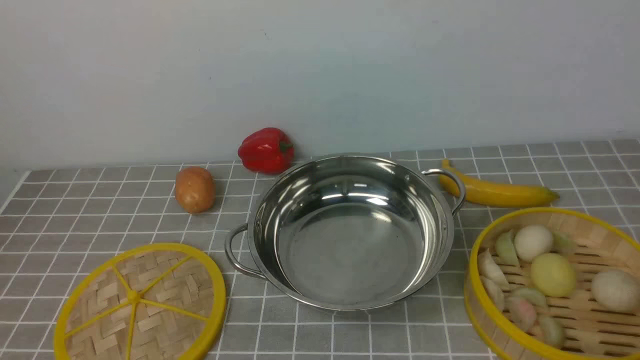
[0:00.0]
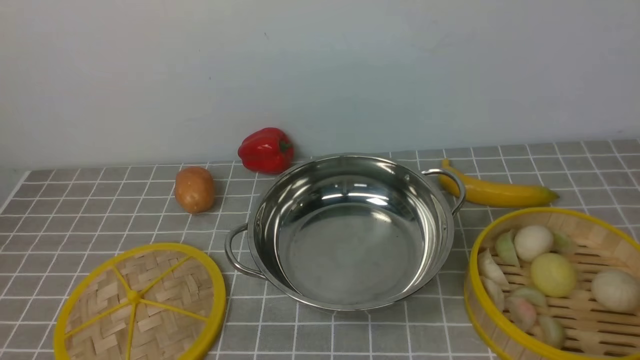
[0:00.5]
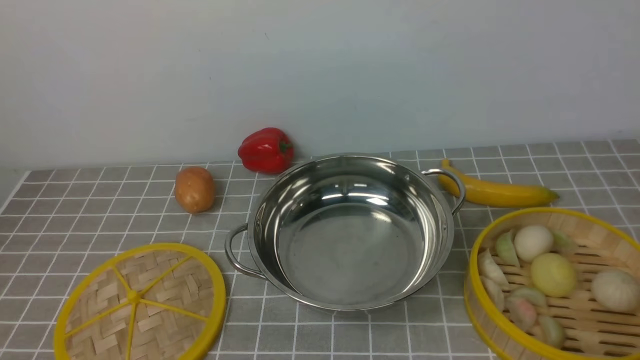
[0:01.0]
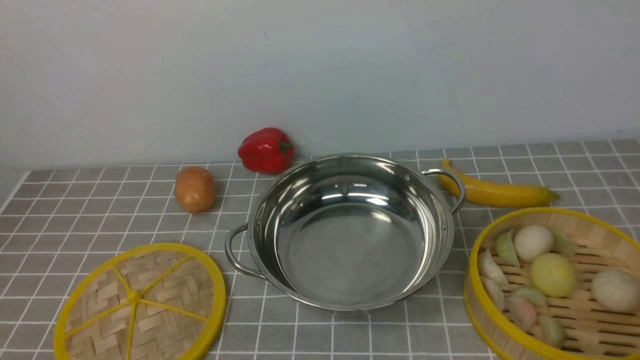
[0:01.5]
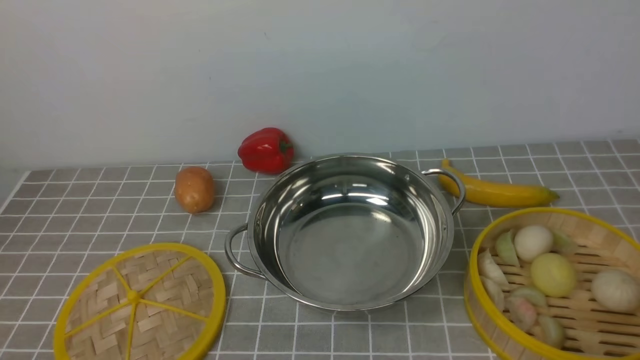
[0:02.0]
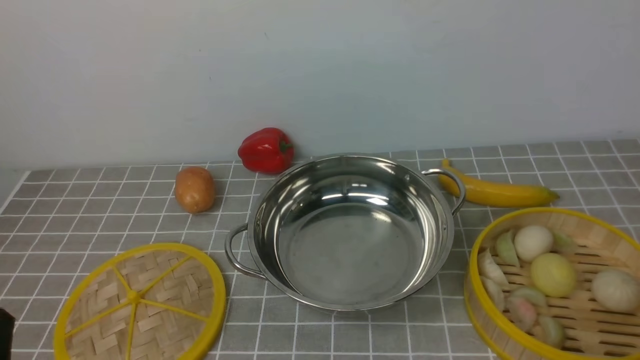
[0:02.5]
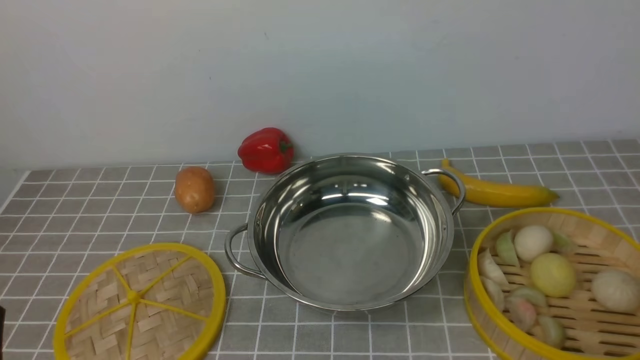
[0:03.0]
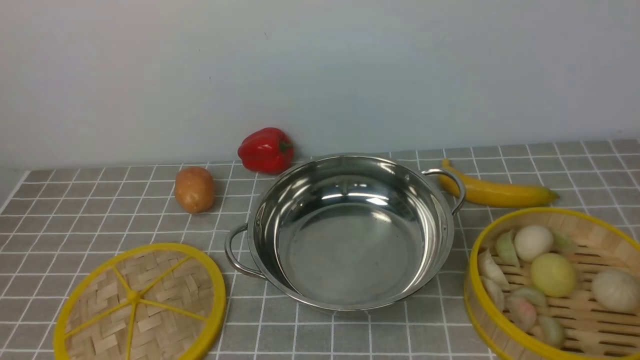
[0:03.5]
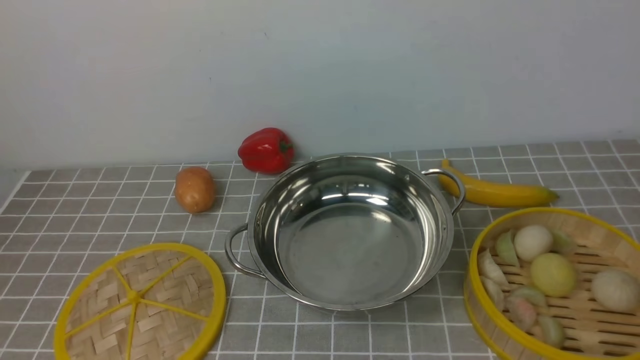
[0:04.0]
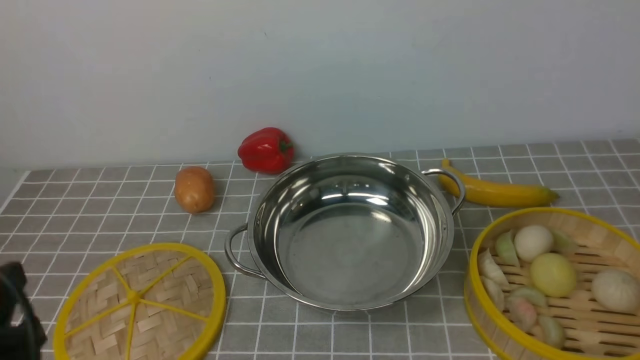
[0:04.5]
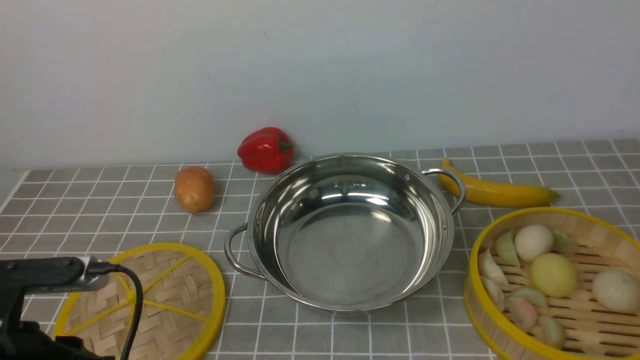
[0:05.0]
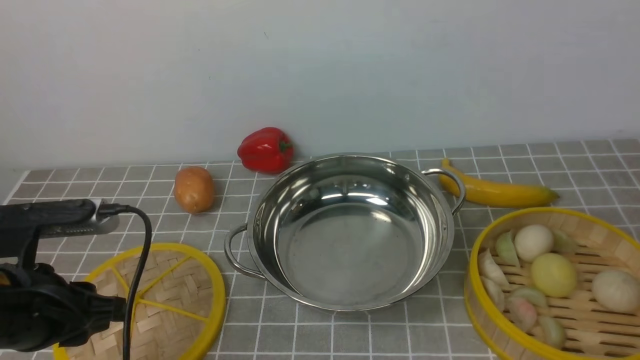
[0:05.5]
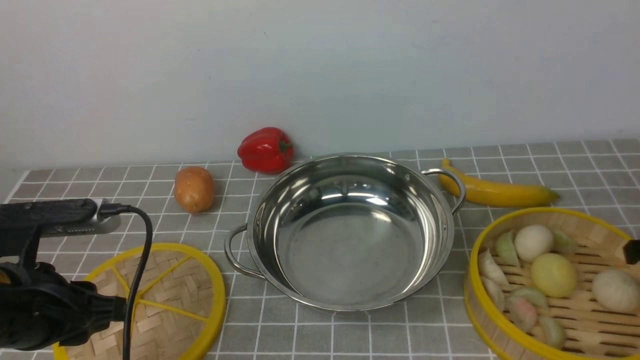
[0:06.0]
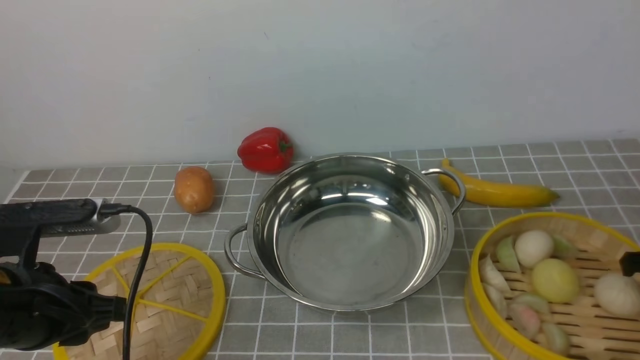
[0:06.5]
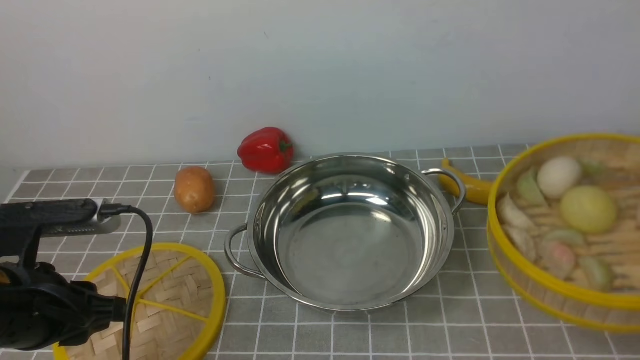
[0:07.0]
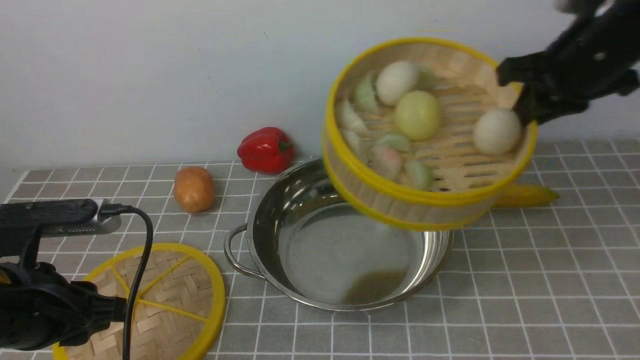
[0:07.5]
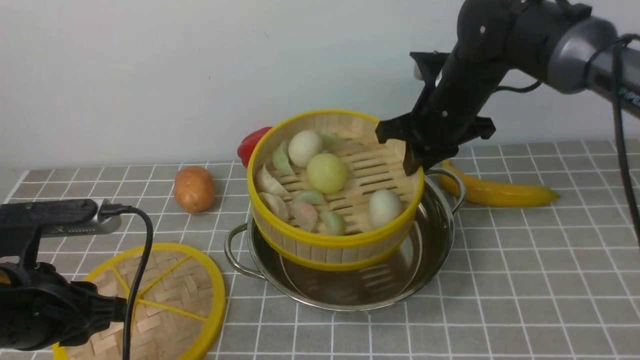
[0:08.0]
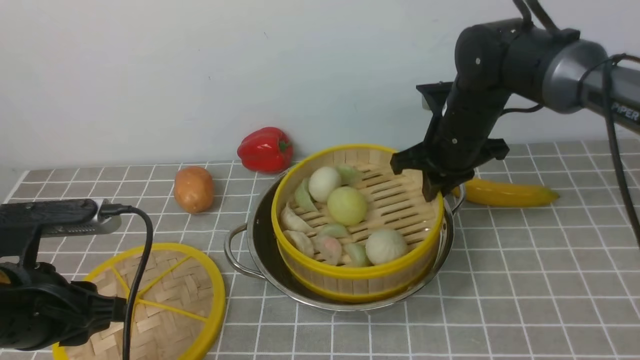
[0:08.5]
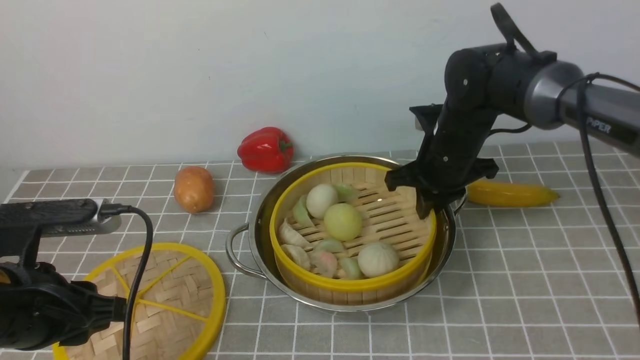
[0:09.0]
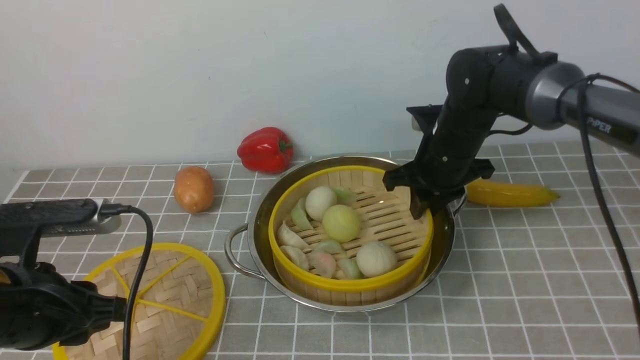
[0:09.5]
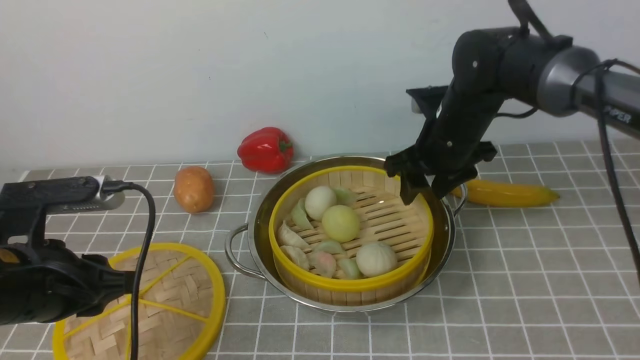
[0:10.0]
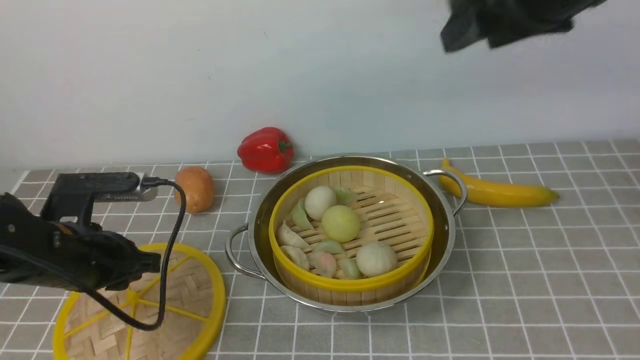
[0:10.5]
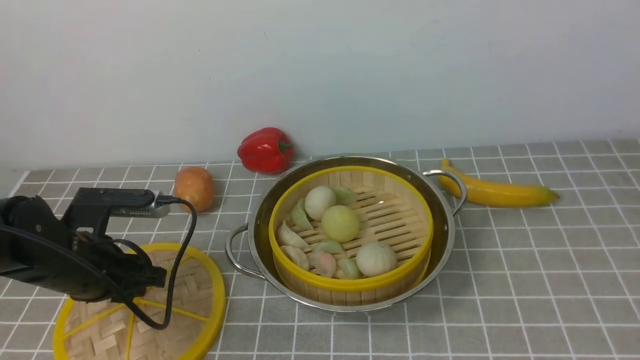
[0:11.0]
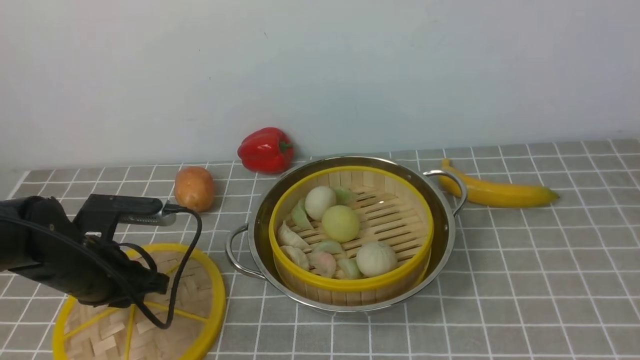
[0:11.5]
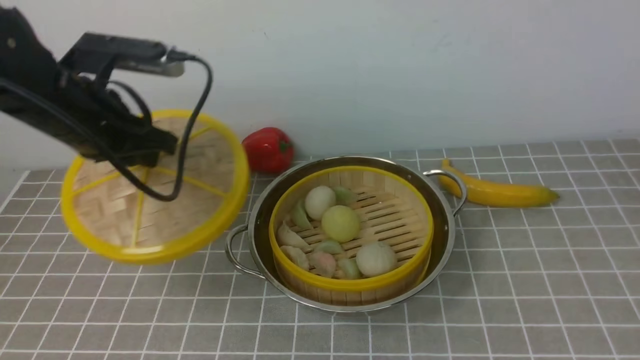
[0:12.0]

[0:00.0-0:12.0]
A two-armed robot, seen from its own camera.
Task of the whole recording: place the steamer in the pot on the grey tablecloth, and put the lid on the steamer.
Step, 0:00.0 to 0:06.5: use the right arm to lift the steamer closest to it.
Step, 0:07.0 to 0:09.5: use the right arm to put the steamer into the iron steamer pot in the middle.
0:04.0 to 0:06.0: The left gripper heads forward and downward, covering roughly 20 cm.
0:06.0 to 0:08.0: The right gripper travels to the left and forward by approximately 25 cm, and closes up.
0:08.0 to 0:10.0: The right gripper heads downward, covering some 5 cm, and opens.
0:10.0 to 0:12.0: The left gripper goes about 15 cm forward, and closes. The right gripper moves backward and upward, about 60 cm.

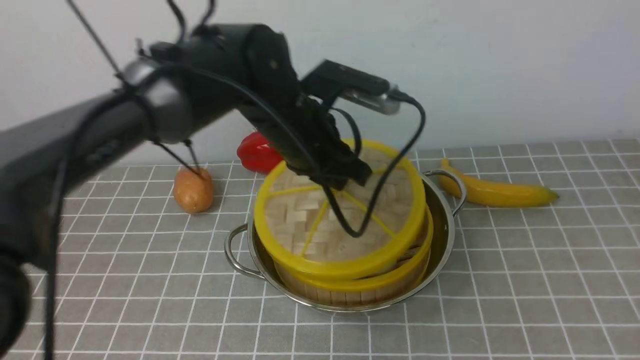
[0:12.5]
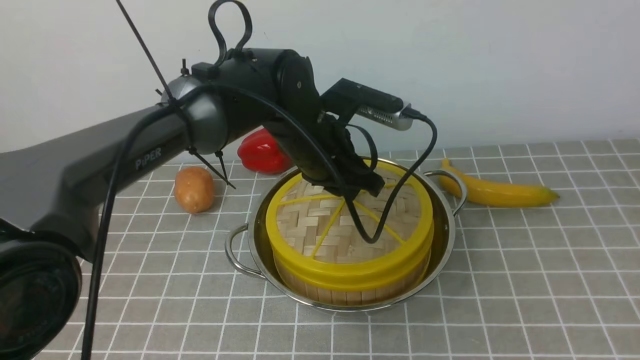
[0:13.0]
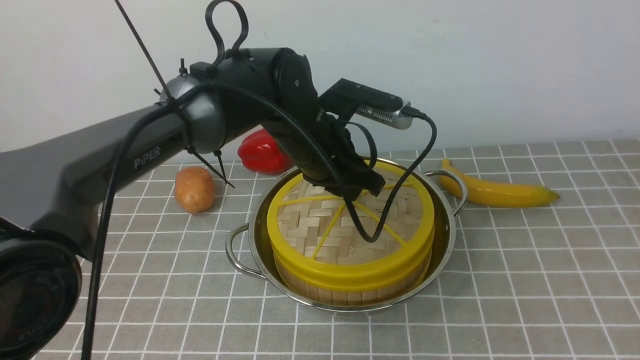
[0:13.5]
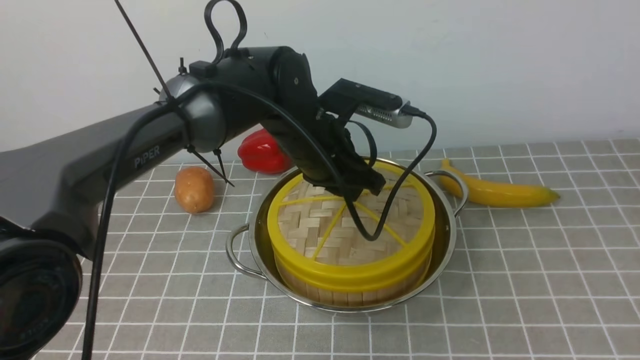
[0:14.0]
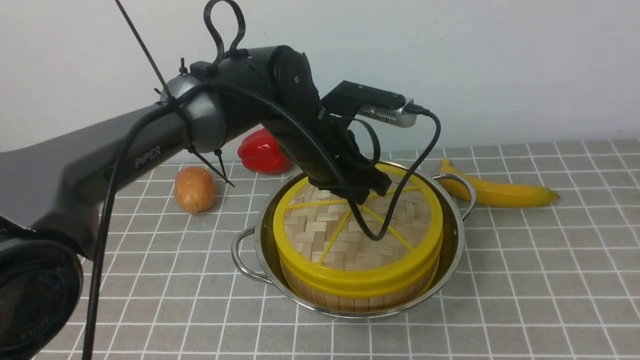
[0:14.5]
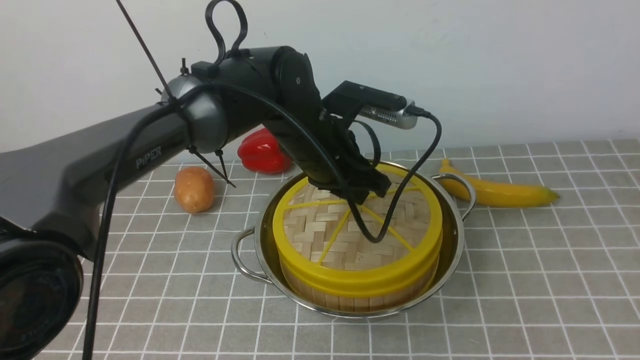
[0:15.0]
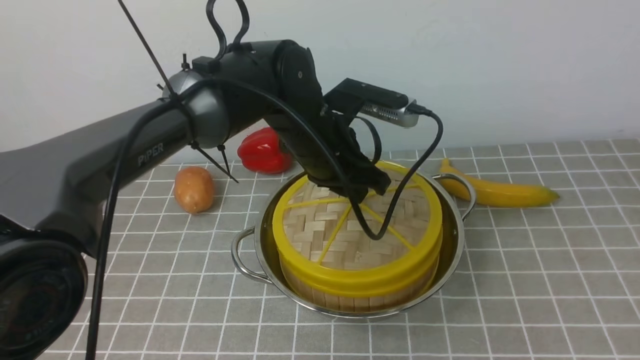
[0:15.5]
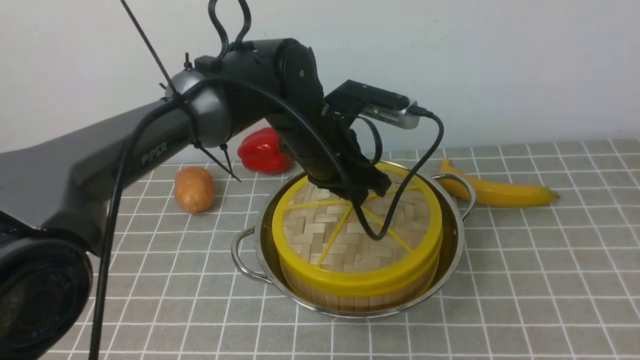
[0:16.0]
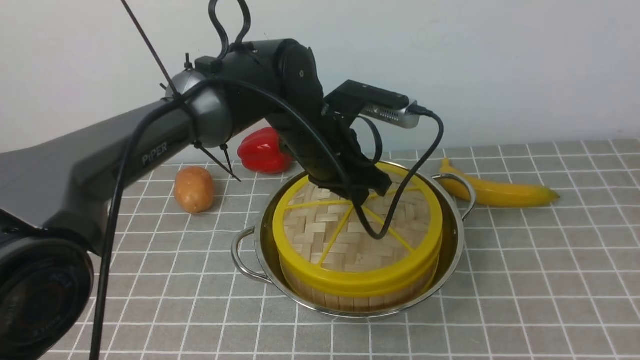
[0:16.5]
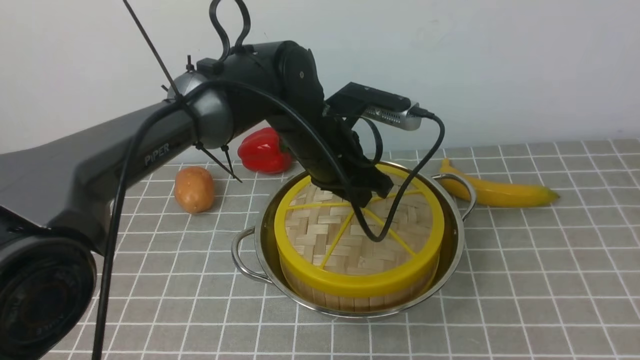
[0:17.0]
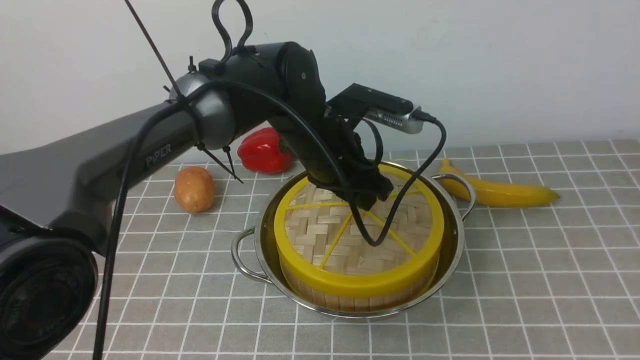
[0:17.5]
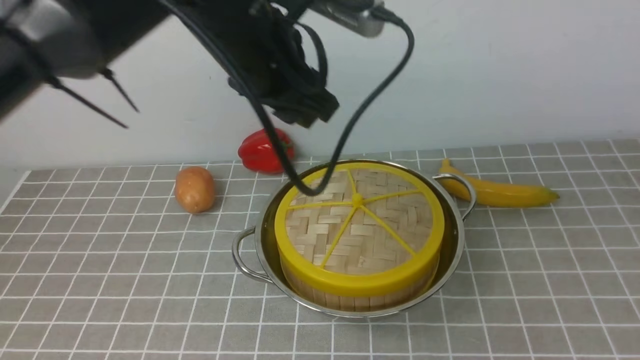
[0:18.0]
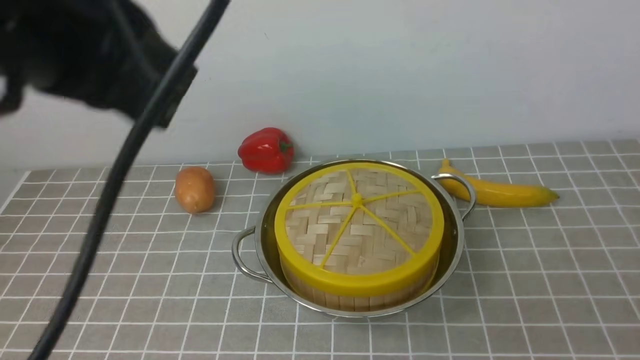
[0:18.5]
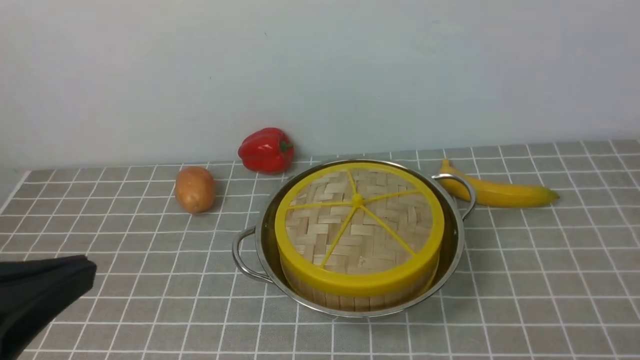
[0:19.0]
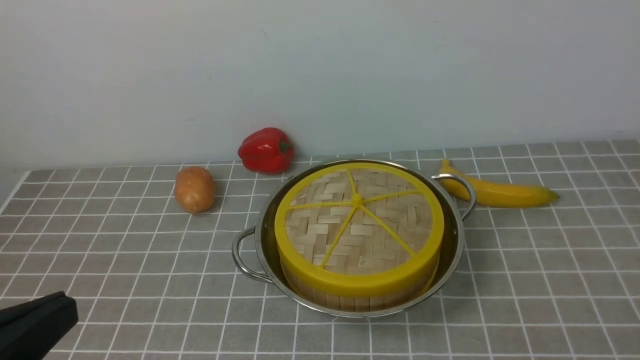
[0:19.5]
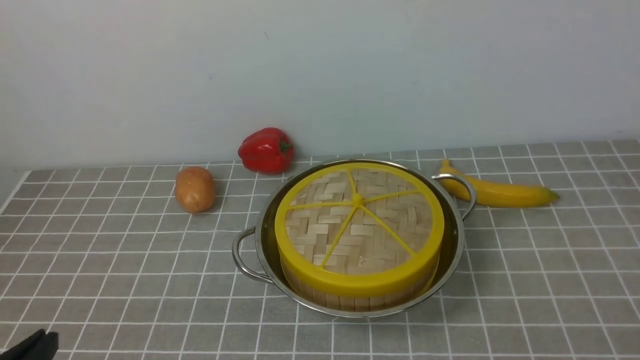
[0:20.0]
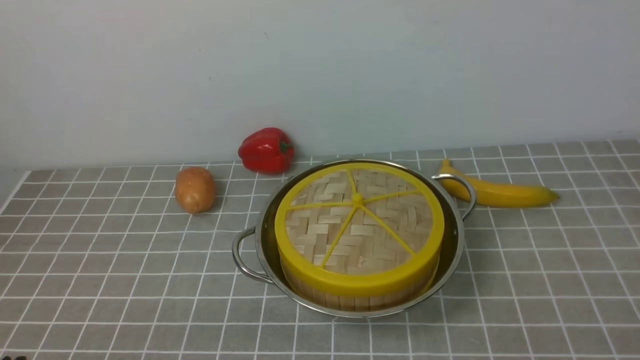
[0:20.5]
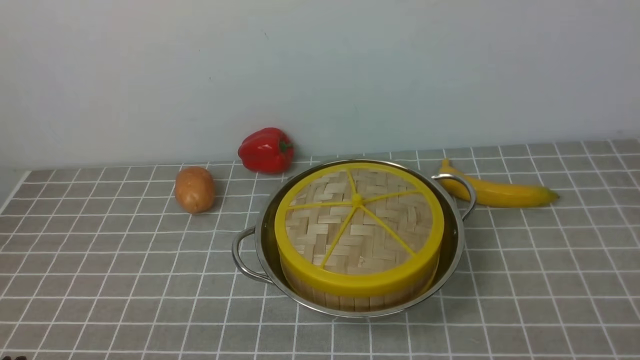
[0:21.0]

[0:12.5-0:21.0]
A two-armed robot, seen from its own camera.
Task of the whole recording: place the steamer in the pot on the grey tablecloth, and put the lid on the steamer.
Step, 0:12.5 to 0:17.5: use the left arm to place the steamer lid on the steamer.
0:12.5 to 0:14.5: The left gripper moves downward and to the right, some 5 cm.
0:14.5 to 0:16.5: Neither gripper changes place.
0:16.5 to 0:19.0: The left gripper travels backward, to the left and upward by roughly 40 cm, and closes its fingers, while the right gripper moves downward, some 25 cm, and closes its fingers.
0:19.0 to 0:21.0: The left gripper travels downward by some 20 cm.
